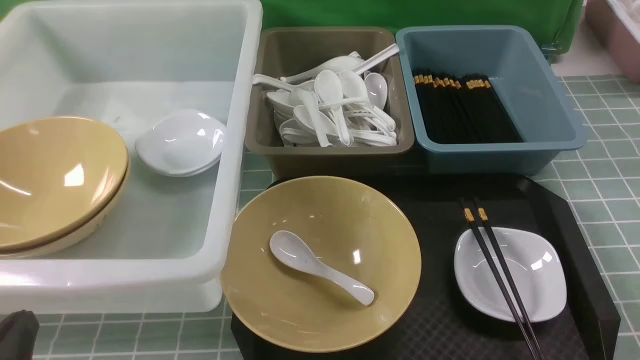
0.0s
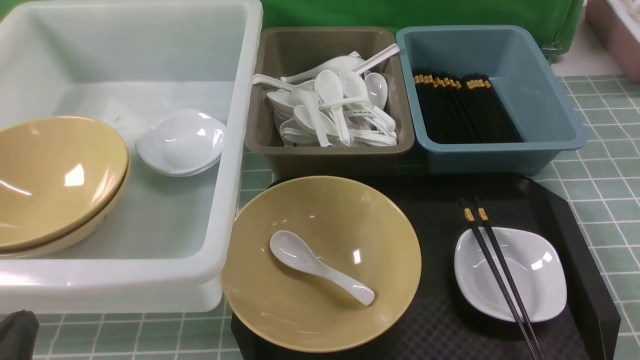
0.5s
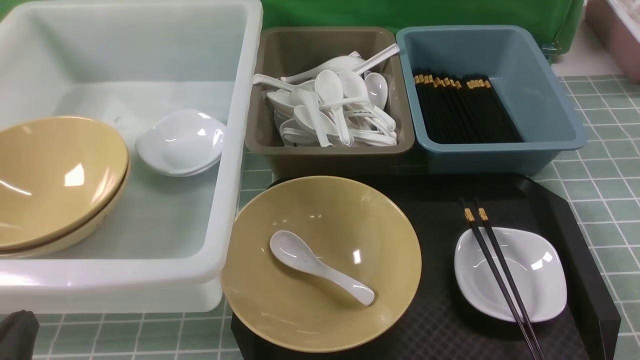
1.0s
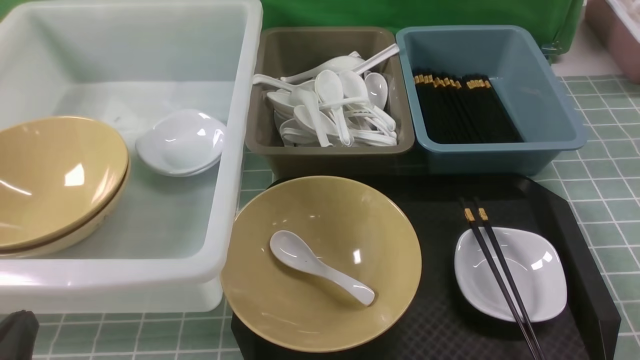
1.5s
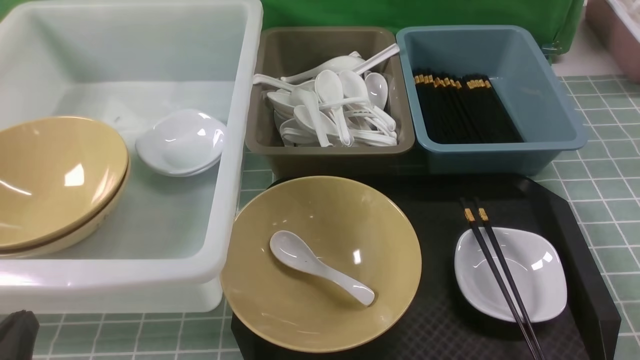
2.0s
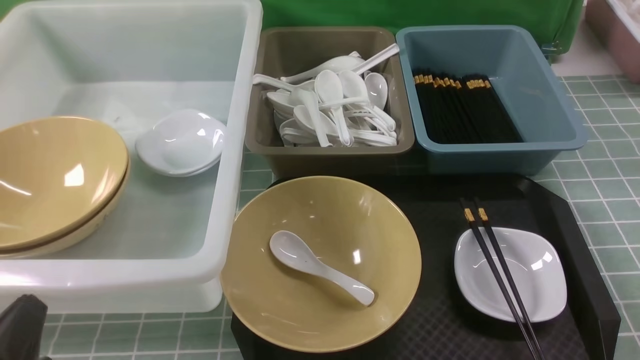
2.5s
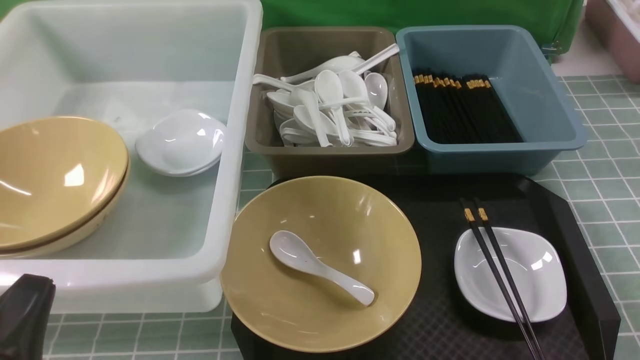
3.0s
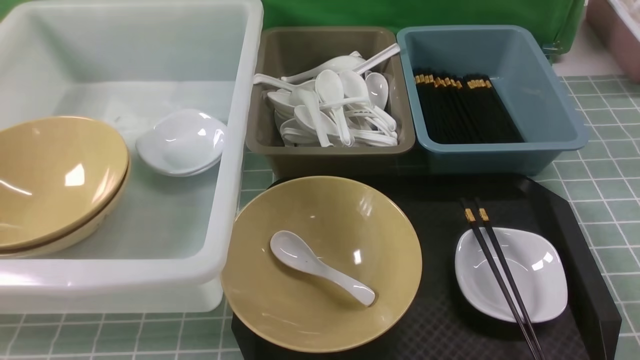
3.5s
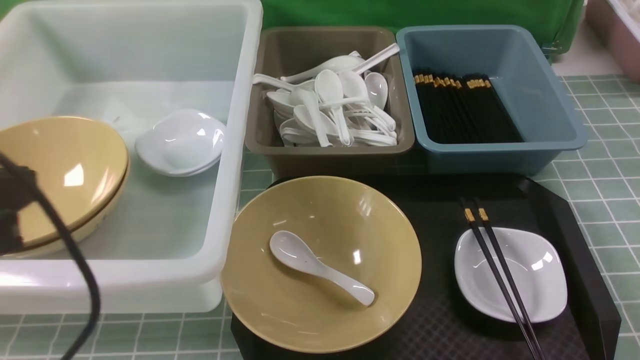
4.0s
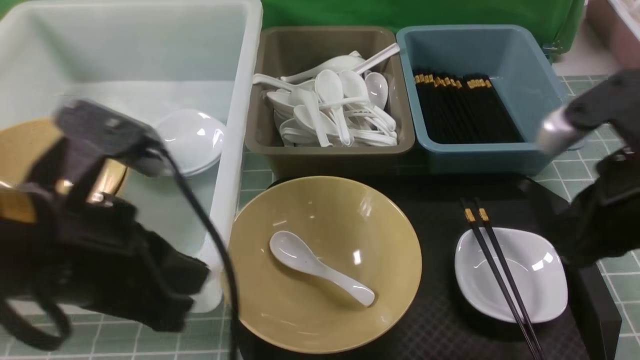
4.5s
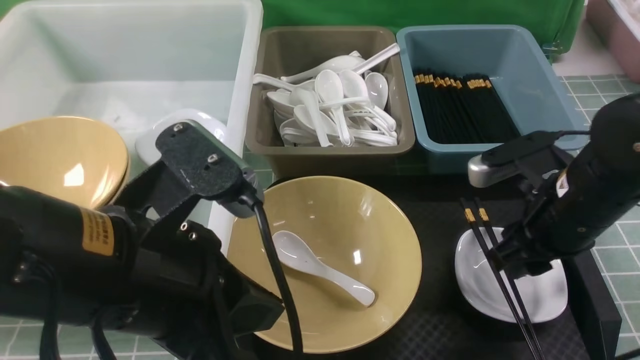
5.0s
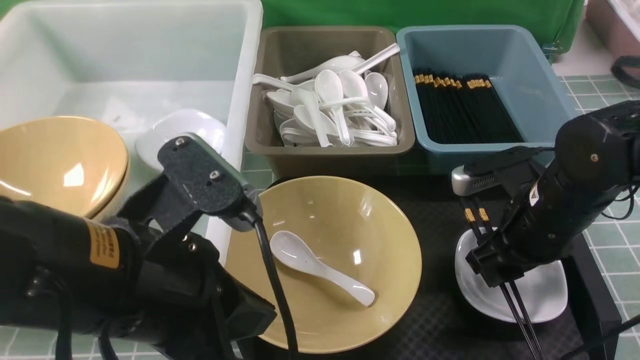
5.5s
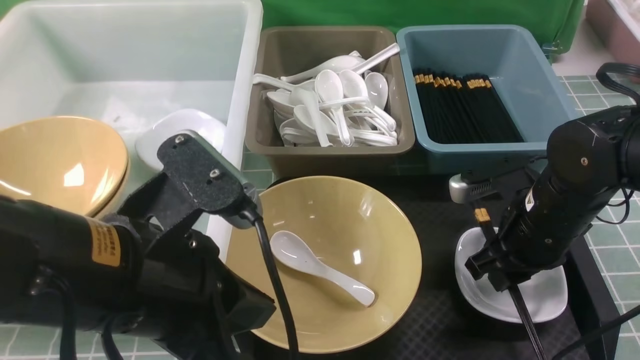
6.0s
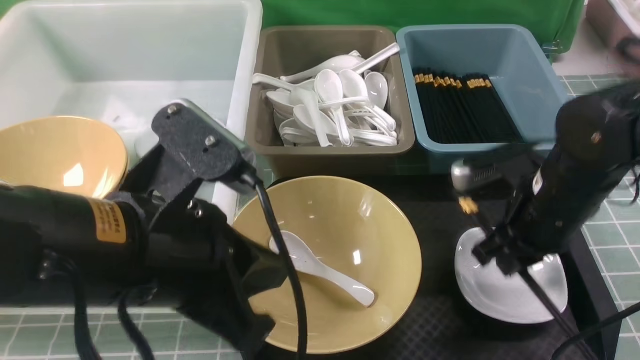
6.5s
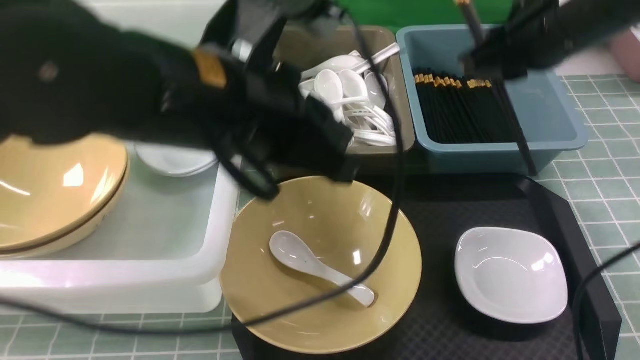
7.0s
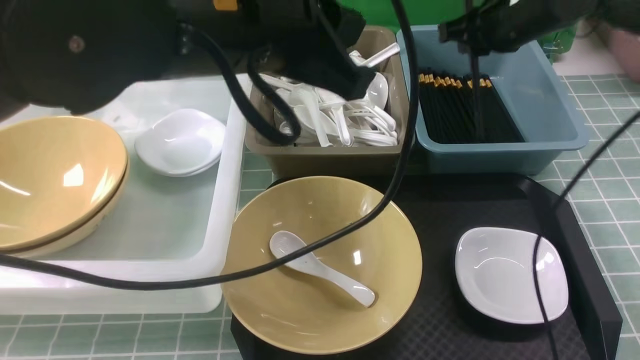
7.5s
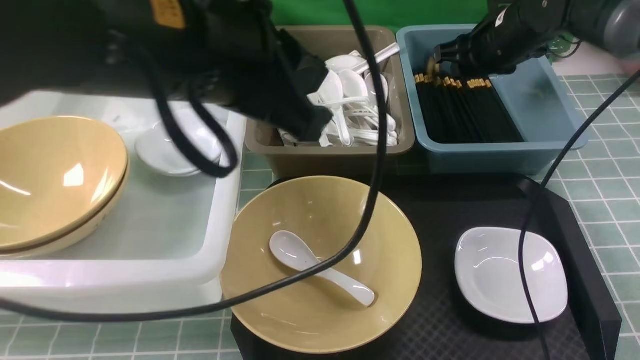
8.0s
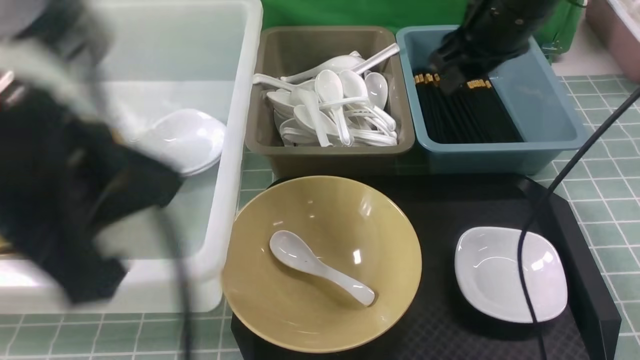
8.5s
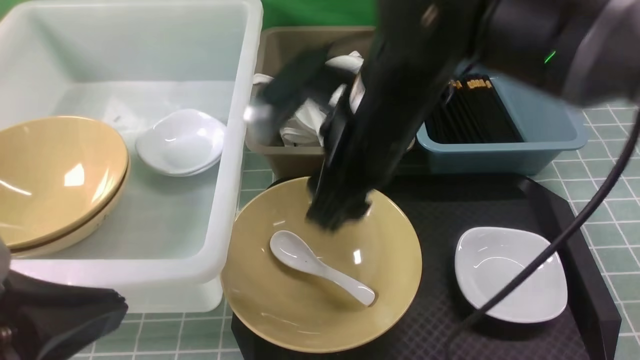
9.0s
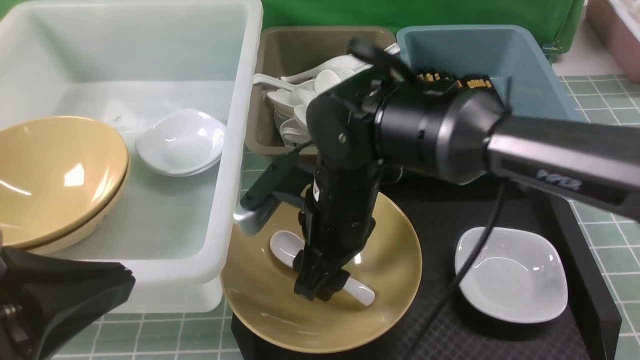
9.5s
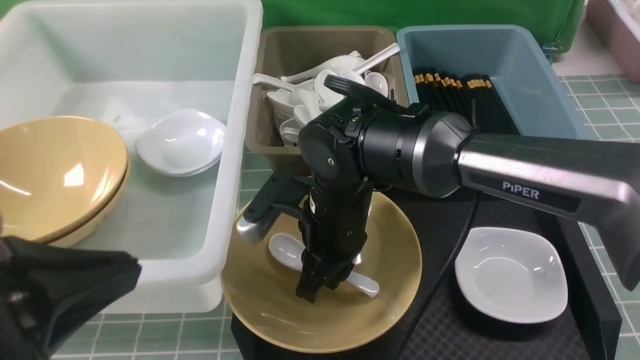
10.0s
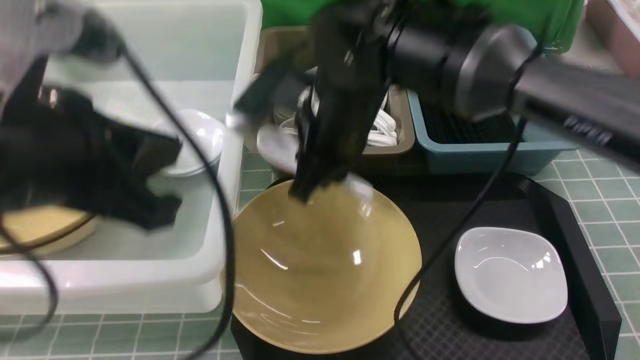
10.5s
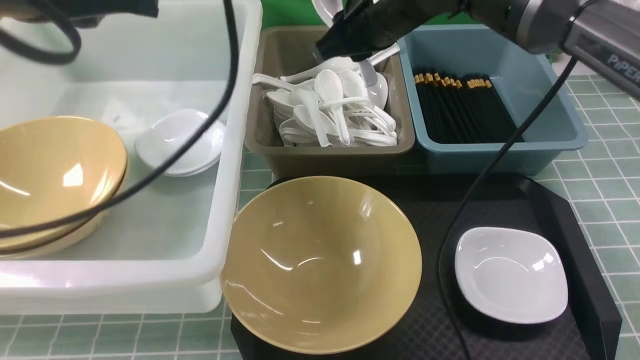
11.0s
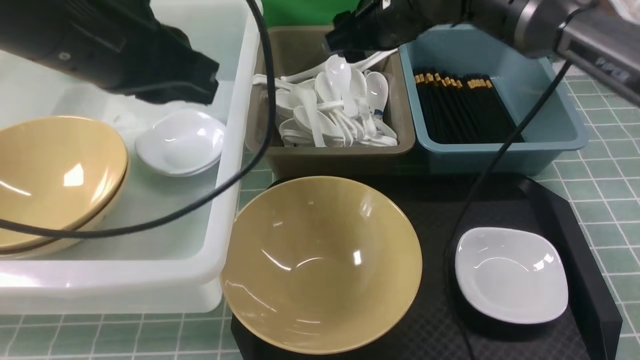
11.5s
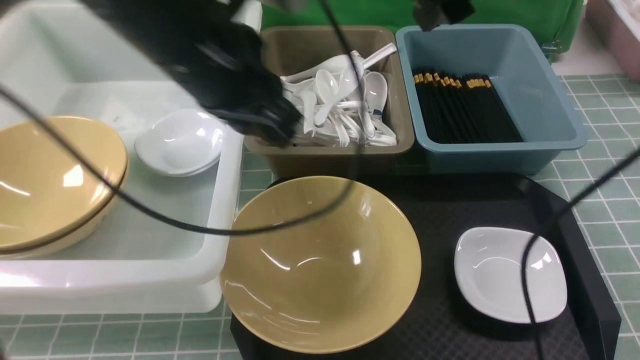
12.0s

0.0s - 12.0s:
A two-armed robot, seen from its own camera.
Task of the whole recording: on blue table put chopsticks spoon bowls plates into blue grey white boxes.
Step, 0.0s - 6.0s: use the right arm to grab the chopsticks.
Step, 6.5s - 8.0s: use the right arm to put the chopsticks into the small storage box on the right.
Step, 8.5s - 10.0s: use the right arm to grab the soup spoon in the middle.
Step, 10.5s - 11.5s: use the right arm to put the soup spoon into the small storage box in the middle.
0.0s - 2.0s: Both grippers stay about where they are.
2.0s - 4.0s: The left gripper travels upward by approximately 20 cm.
4.0s - 6.0s: The left gripper is displaced to the right and downward by approximately 10 cm. Meanwhile the right gripper is displaced forward, downward and to the left by about 25 cm, and opens up.
6.0s - 8.0s: The left gripper travels upward and forward by roughly 10 cm; the right gripper shifts about 20 cm forward and upward.
8.0s - 10.0s: The left gripper goes approximately 15 cm backward, to the left and downward; the right gripper goes about 30 cm to the left and backward.
10.0s - 12.0s: The left gripper moves forward and to the right, about 25 cm. The right gripper shifts about 25 cm upward and to the right, and opens.

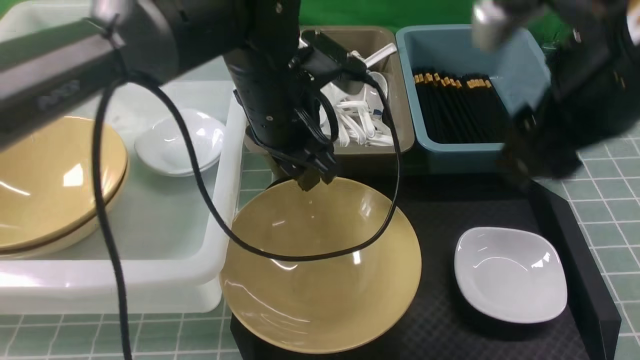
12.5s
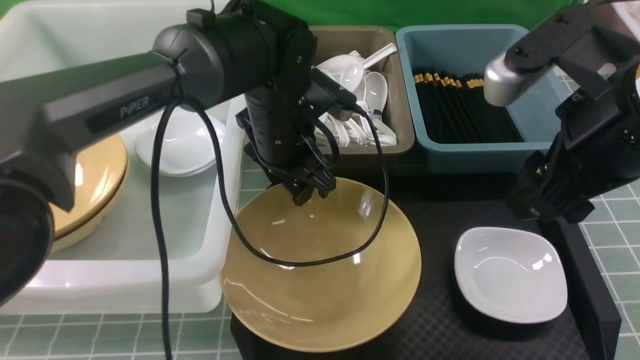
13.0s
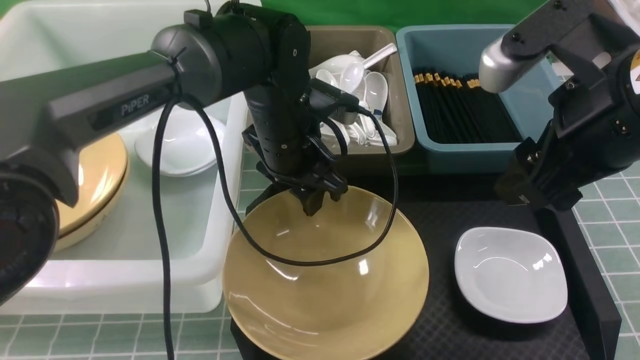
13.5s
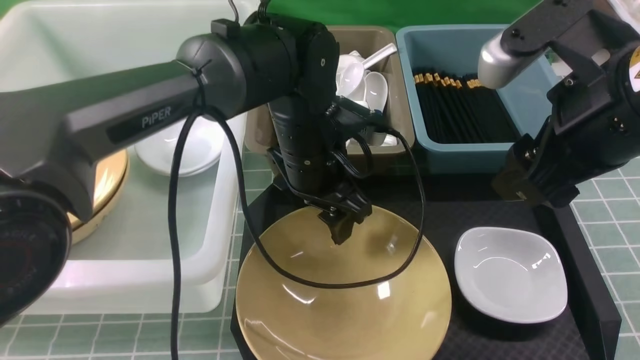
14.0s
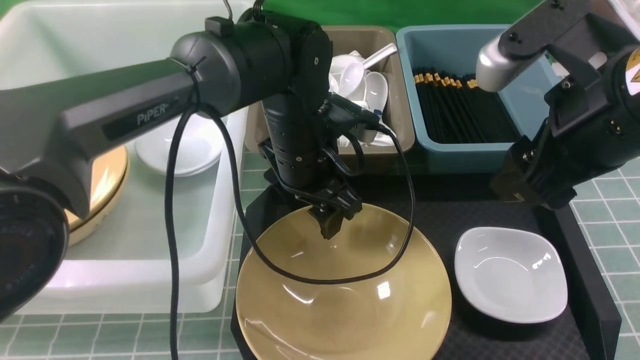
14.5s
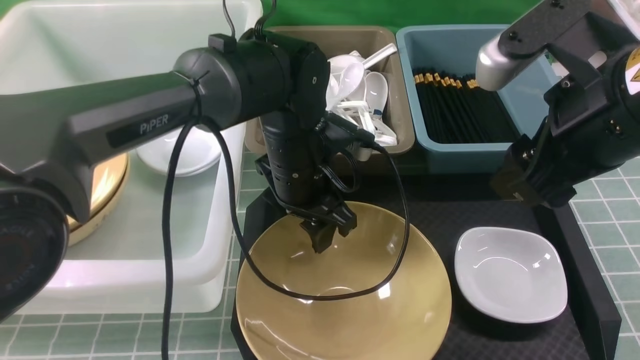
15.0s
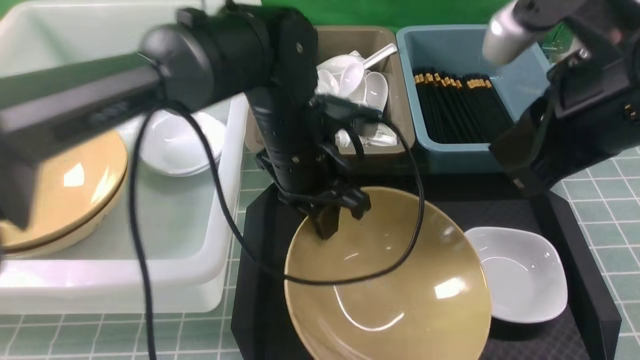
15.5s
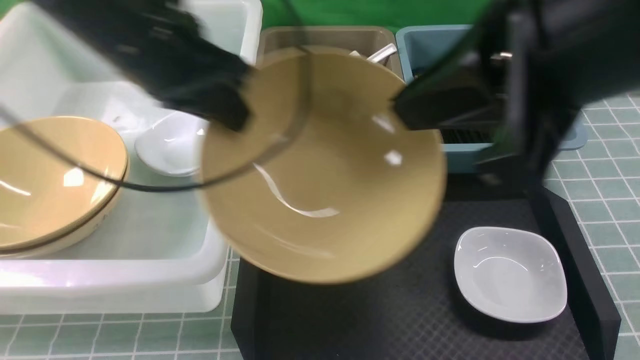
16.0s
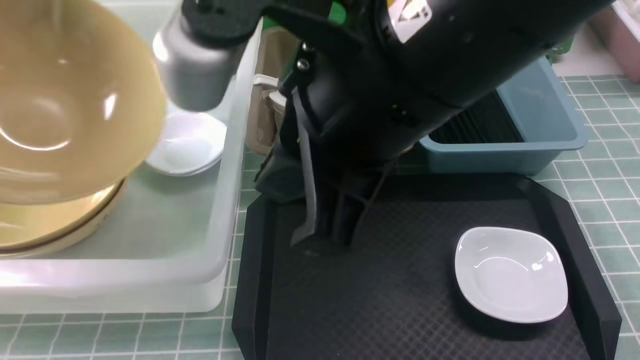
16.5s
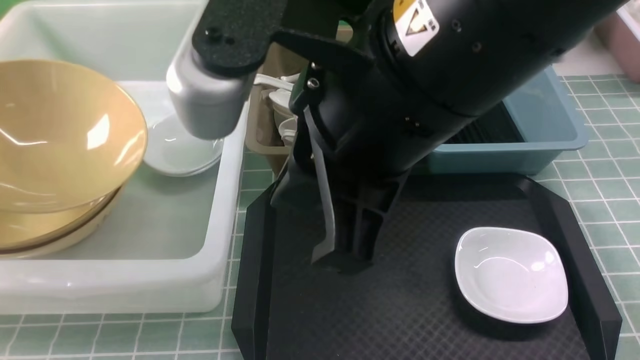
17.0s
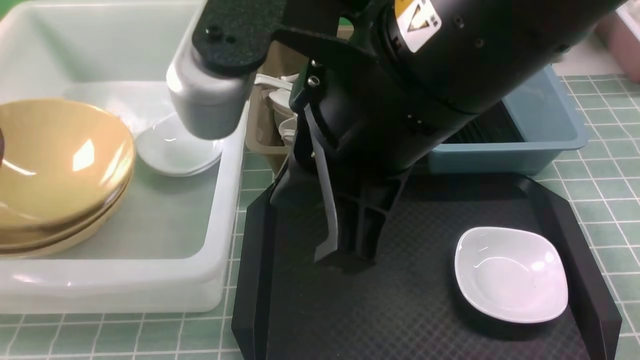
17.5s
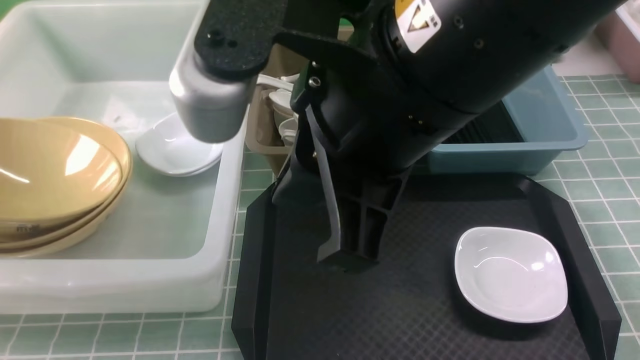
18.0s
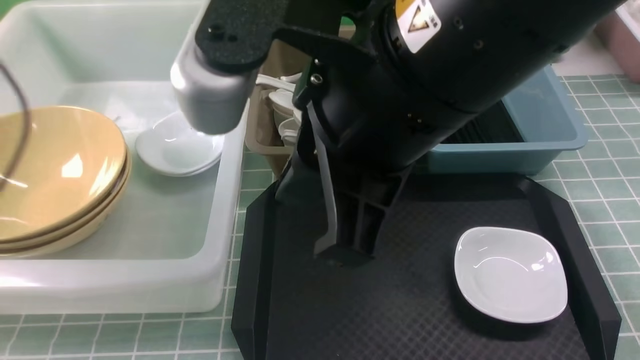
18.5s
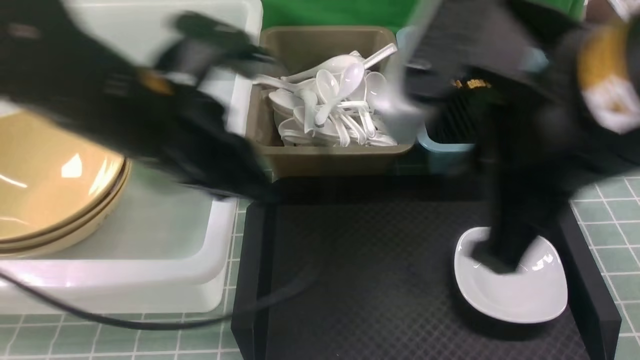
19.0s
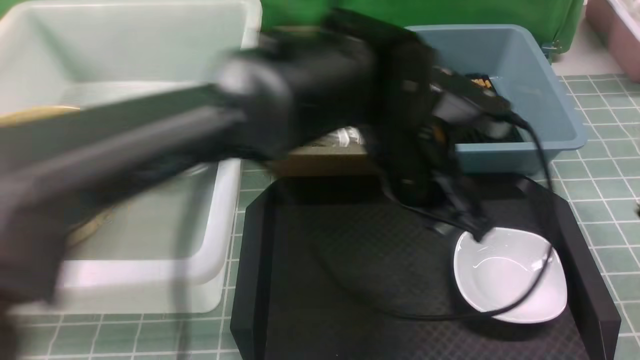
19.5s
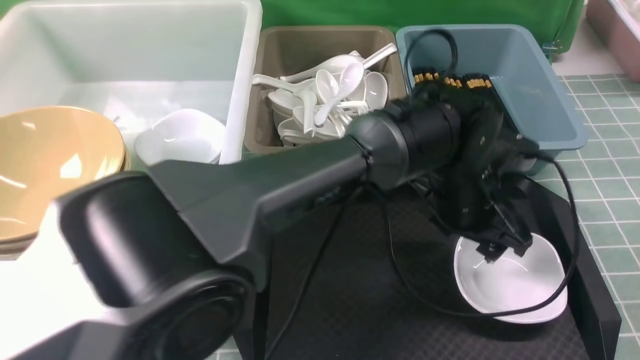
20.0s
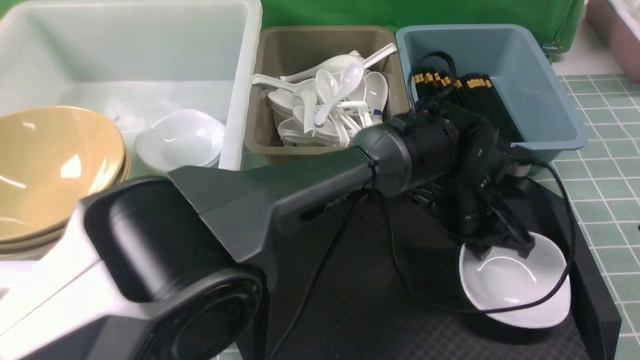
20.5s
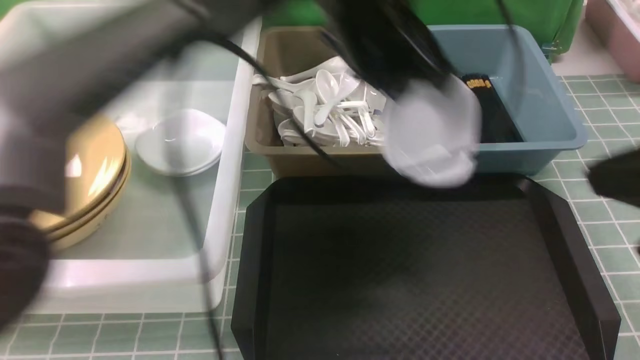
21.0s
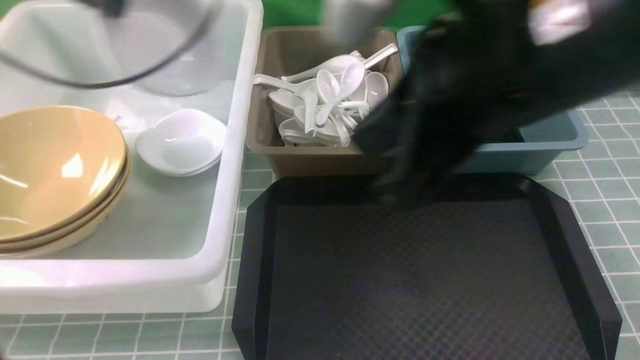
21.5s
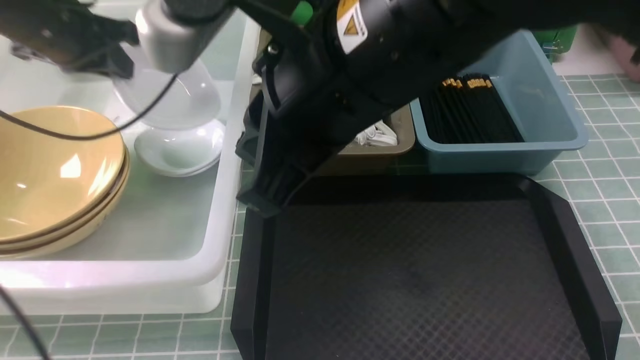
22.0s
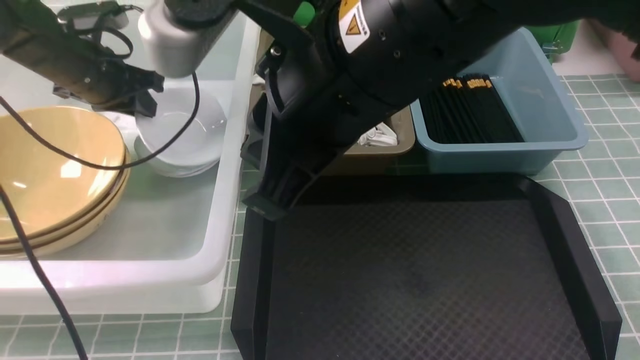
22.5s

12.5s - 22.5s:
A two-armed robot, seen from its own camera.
Task of the whole recording: on blue table put chopsticks spoon bowls plates into blue grey white boxes.
Step, 12.5s - 15.5s: use the left arm to grab the yellow noodle bowl on the left.
Step, 16.0s - 18.0s: use the left arm to put the noodle bowl into the large storage box on the left.
Step, 18.5s - 20.5s: use the left arm to grab the plate.
12.5s - 14.5s: The left gripper moves downward, some 5 cm.
14.5s - 16.5s: The right gripper travels to the left and upward by roughly 15 cm, and closes, while the left gripper heads to the left and upward, covering about 35 cm, and closes.
16.5s - 18.5s: The left gripper moves about 10 cm downward and comes back, and opens.
18.5s - 20.5s: The right gripper heads to the right, covering approximately 20 cm; the left gripper moves to the right, some 50 cm, and closes up.
20.5s - 22.5s: The left gripper shifts some 40 cm to the left; the right gripper heads to the left, covering some 20 cm.
